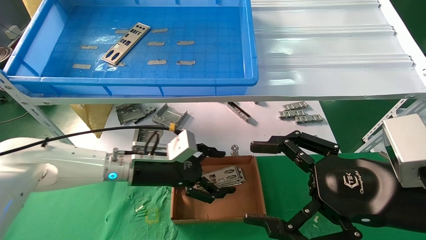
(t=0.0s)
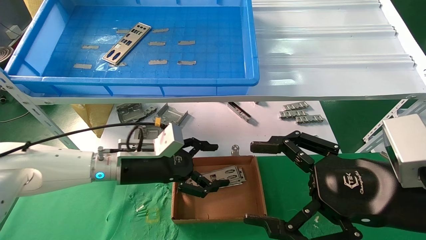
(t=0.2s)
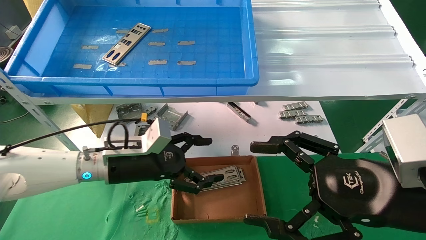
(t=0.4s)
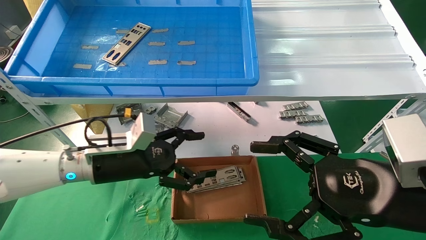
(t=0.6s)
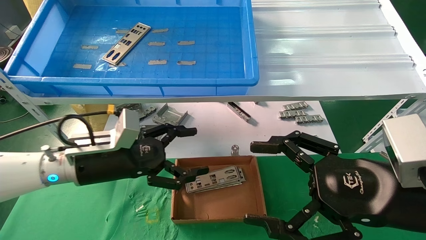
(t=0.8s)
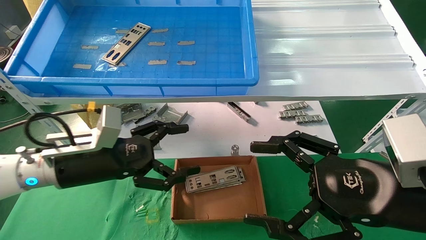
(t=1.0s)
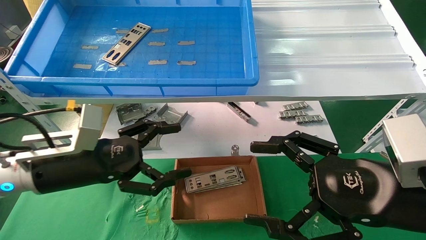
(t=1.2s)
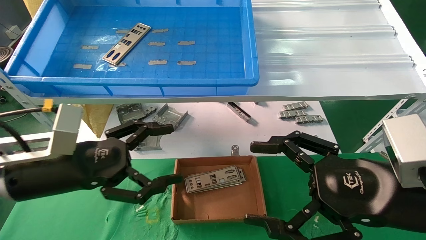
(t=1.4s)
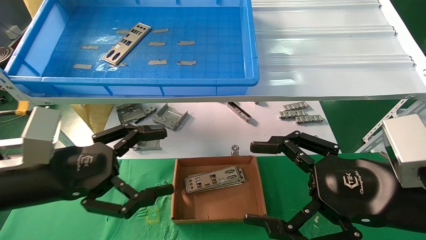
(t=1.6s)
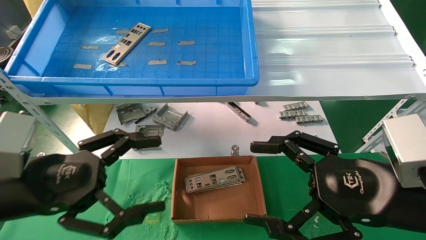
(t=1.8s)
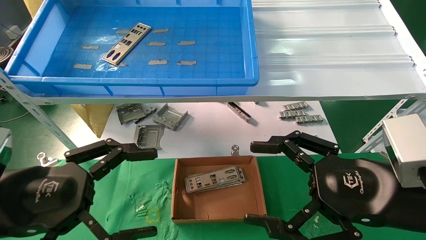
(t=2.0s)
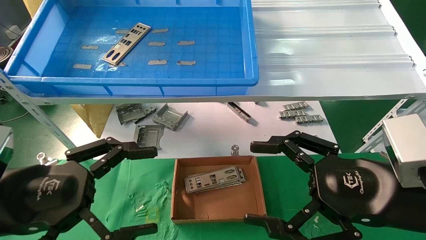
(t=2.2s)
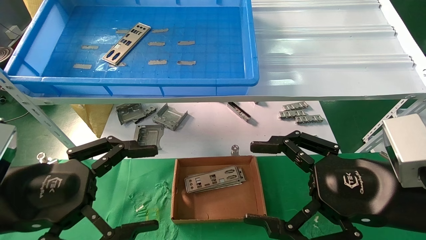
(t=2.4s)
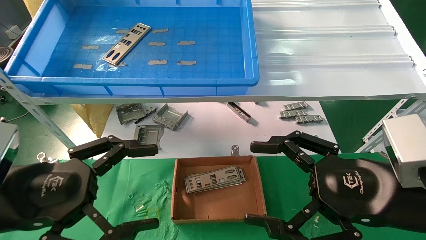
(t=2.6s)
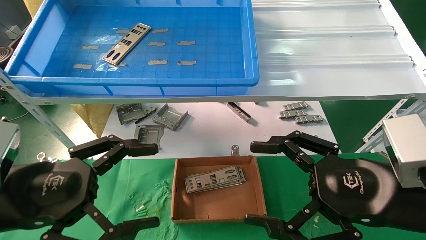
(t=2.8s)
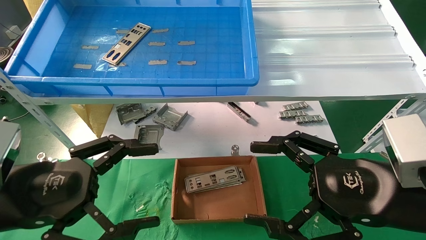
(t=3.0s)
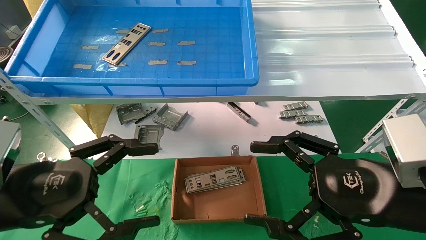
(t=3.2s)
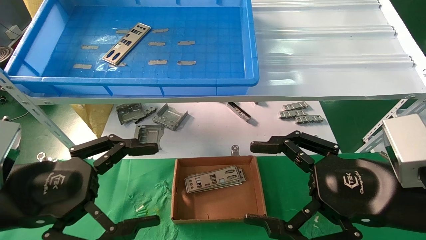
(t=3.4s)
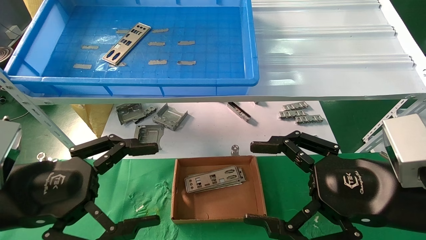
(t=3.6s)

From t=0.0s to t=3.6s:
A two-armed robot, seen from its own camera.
Task of the whole recording: pick up the parts on the tray and put them in the cardboard box.
From t=0.0s to t=1.8s: The left gripper goes some 20 cm backward and to the left.
From t=1.8s to t=3.6s: There are only small adjustments of the grippers.
